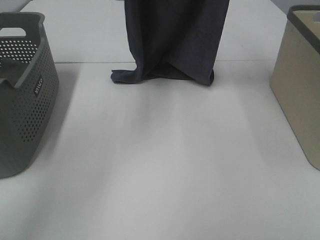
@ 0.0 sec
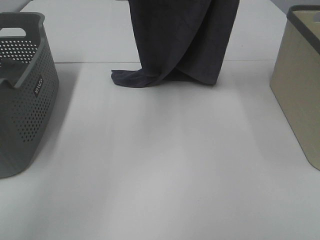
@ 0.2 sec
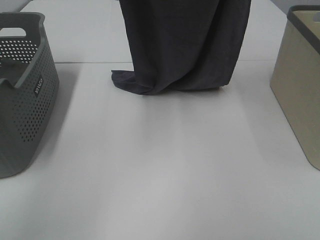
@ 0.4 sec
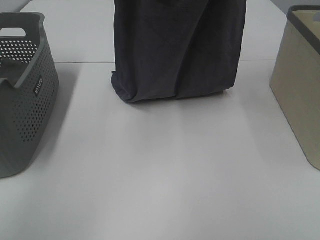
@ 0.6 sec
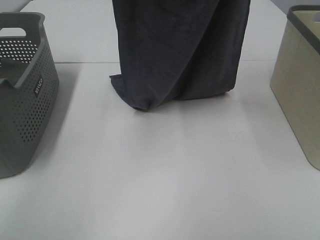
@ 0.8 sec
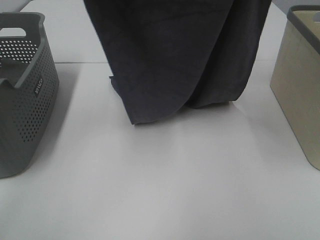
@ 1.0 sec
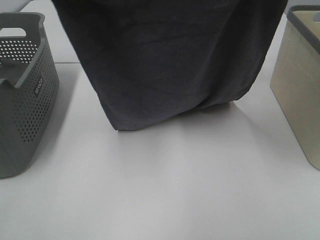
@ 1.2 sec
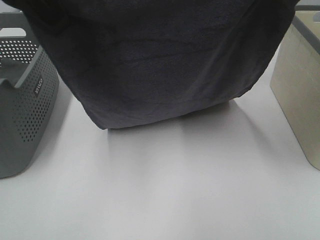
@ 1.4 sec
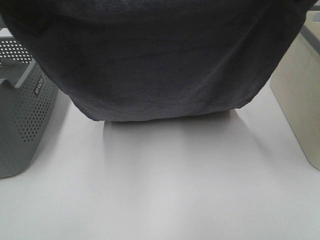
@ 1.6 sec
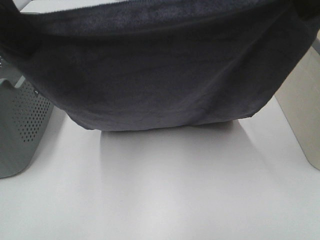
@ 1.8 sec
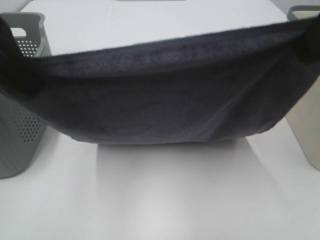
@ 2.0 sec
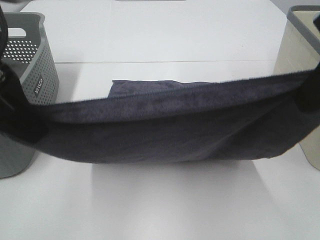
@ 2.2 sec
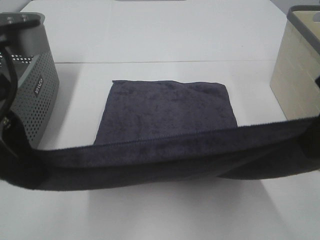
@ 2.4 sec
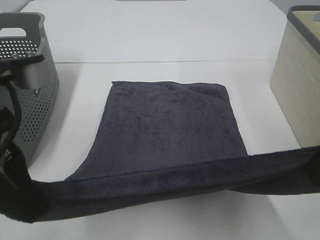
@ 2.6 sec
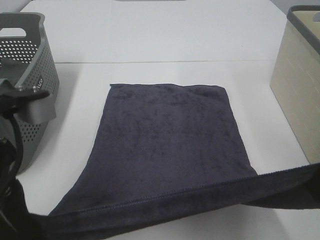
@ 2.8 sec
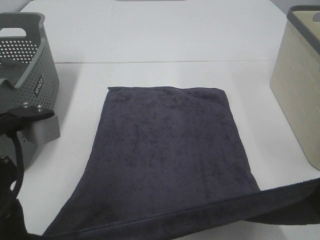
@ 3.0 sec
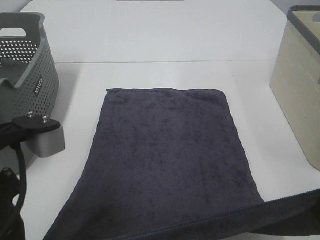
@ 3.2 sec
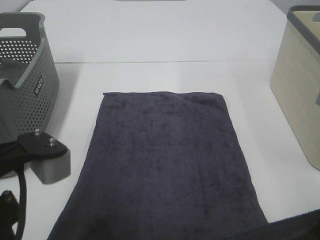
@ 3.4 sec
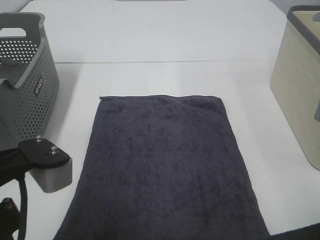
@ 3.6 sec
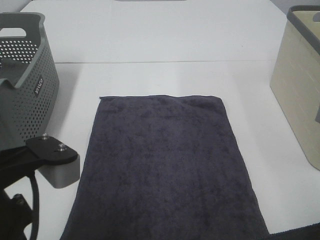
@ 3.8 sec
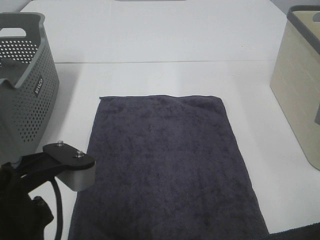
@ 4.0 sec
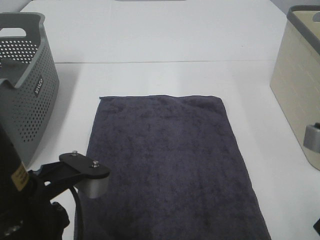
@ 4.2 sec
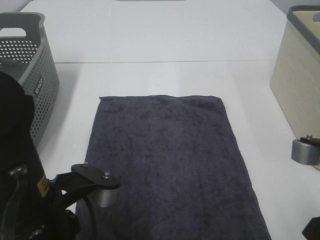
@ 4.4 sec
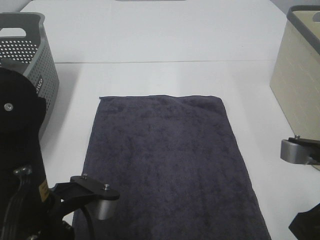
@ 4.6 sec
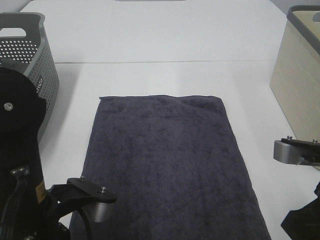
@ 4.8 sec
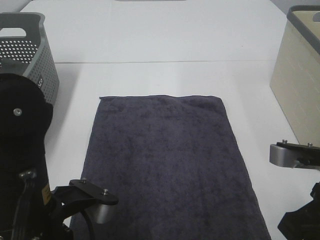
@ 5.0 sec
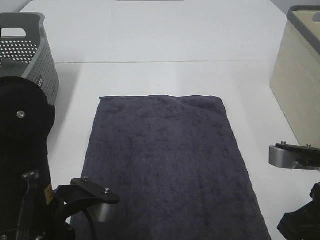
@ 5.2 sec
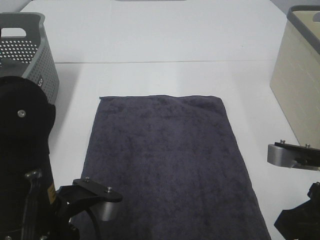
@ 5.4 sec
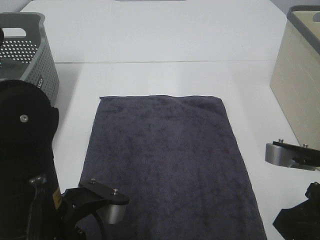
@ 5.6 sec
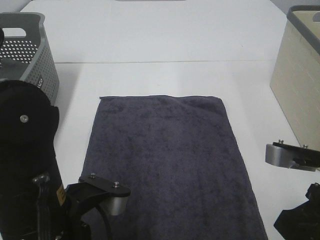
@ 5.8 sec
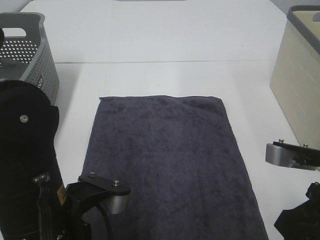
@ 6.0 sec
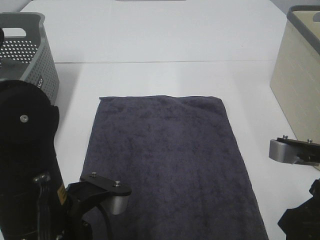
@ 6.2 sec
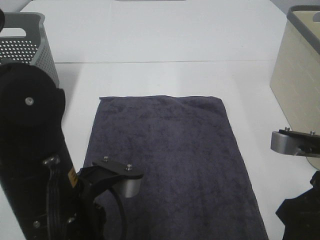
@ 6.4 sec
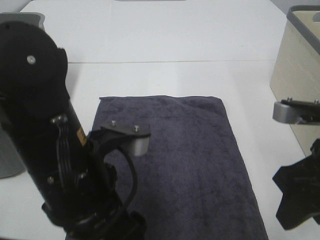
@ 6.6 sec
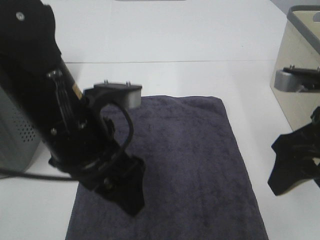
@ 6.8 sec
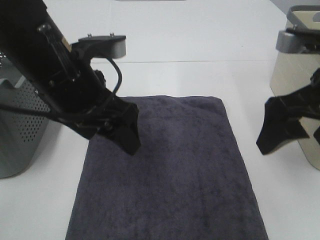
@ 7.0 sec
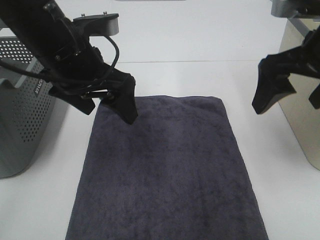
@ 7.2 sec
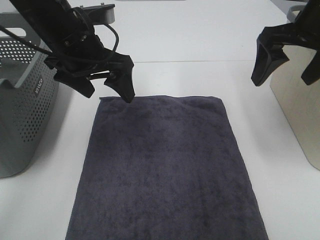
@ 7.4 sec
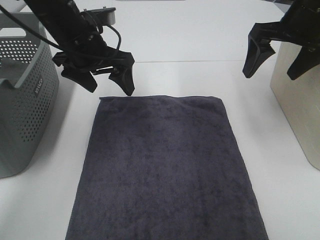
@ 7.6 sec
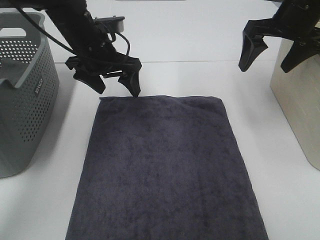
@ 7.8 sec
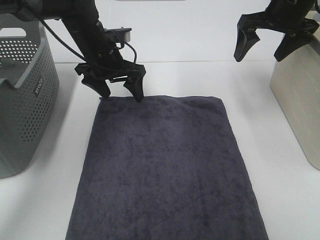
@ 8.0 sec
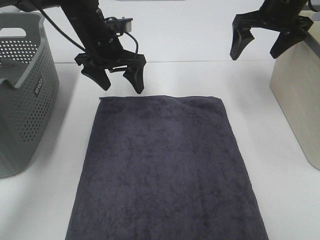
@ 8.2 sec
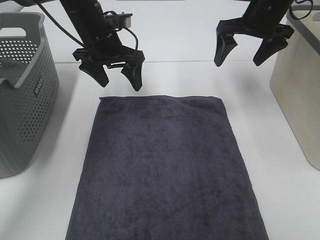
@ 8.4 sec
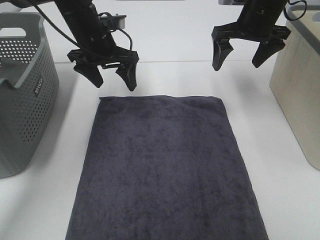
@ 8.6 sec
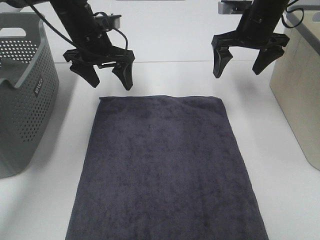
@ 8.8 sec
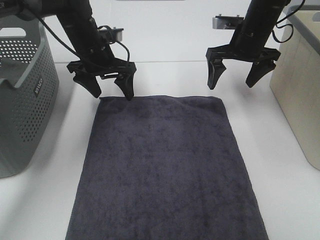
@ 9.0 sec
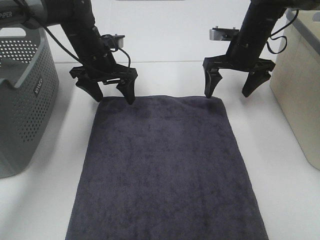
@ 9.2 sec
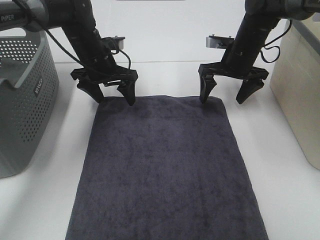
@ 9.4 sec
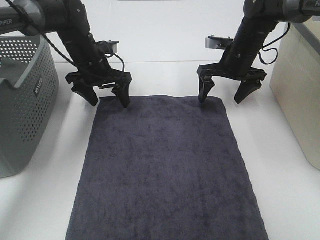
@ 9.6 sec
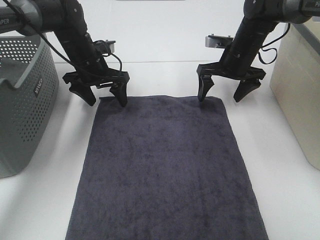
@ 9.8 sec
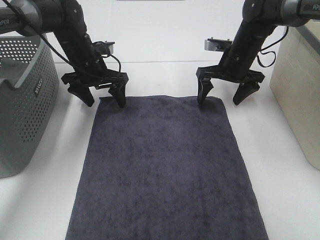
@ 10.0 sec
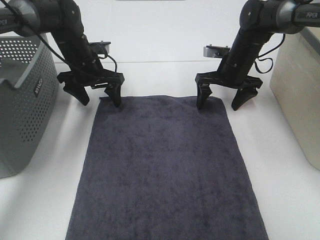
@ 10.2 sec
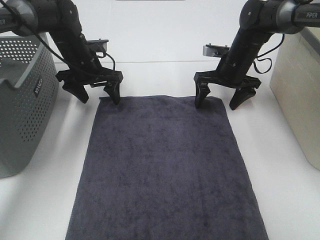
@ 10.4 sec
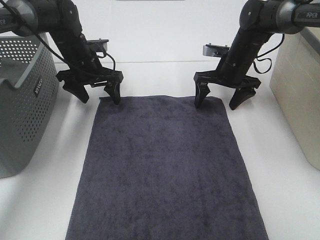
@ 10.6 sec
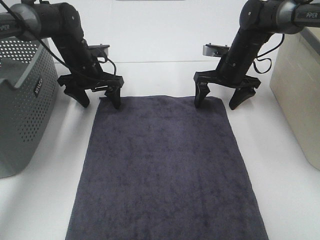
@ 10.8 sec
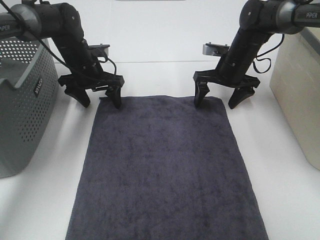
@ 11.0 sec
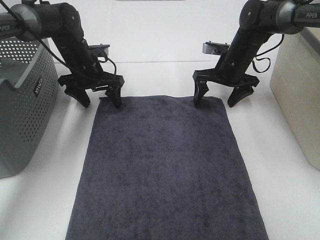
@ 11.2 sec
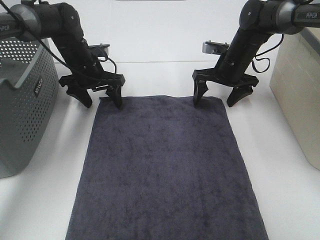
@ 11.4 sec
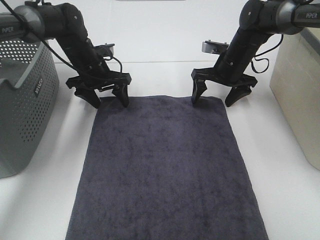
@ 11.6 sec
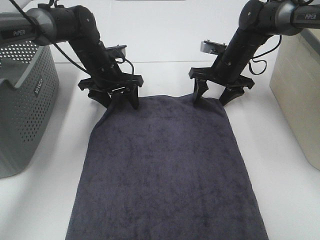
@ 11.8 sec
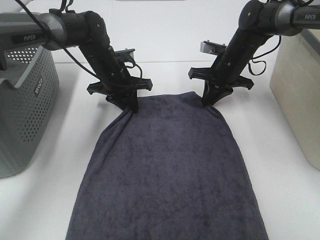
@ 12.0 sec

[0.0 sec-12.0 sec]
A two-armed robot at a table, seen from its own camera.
Task of the whole recording: Remove the towel and place it.
Step, 1.6 sec to 10.4 sec: Left hand:adjust the gray towel.
Step, 1.6 sec to 10.4 sec: Right hand:adjust the gray towel.
0.0 sec to 1.6 sec: Both grippers travel together backward, approximately 25 cm.
1.6 sec to 3.0 sec: Both grippers move downward and backward, some 15 cm.
3.0 sec to 4.4 sec: Both grippers move downward, some 5 cm.
4.4 sec to 6.0 sec: The left gripper opens up, while the right gripper opens up.
6.0 sec to 7.6 sec: The two grippers go approximately 25 cm forward. The right gripper opens its fingers.
7.6 sec to 9.0 sec: Both grippers travel together forward and downward, roughly 10 cm.
9.0 sec to 10.4 sec: The left gripper ends up approximately 5 cm from where it was, while the right gripper goes about 10 cm downward.
10.4 sec to 12.0 sec: The right gripper closes up; the left gripper heads to the right, covering approximately 5 cm, and closes up.

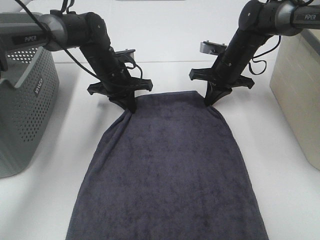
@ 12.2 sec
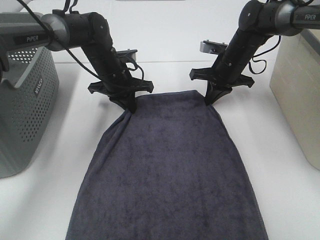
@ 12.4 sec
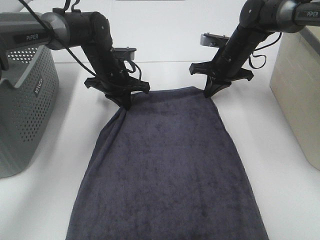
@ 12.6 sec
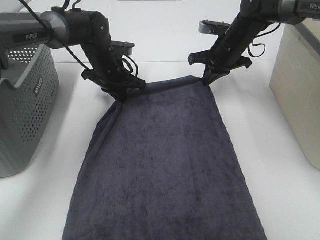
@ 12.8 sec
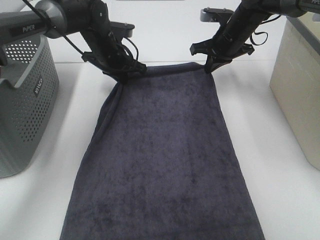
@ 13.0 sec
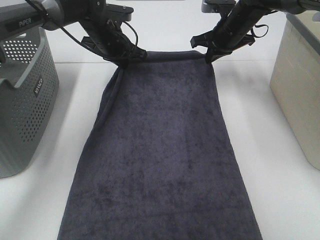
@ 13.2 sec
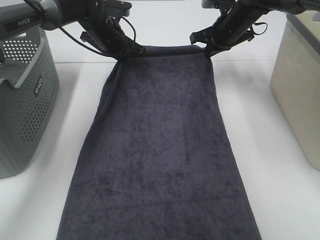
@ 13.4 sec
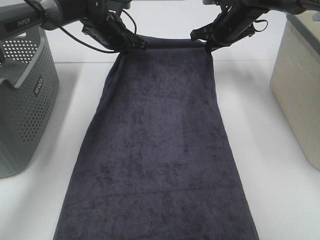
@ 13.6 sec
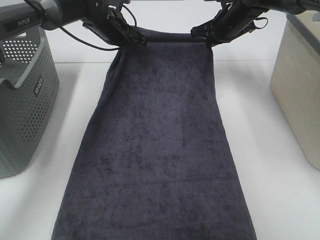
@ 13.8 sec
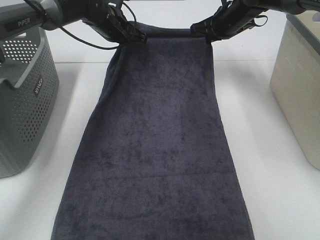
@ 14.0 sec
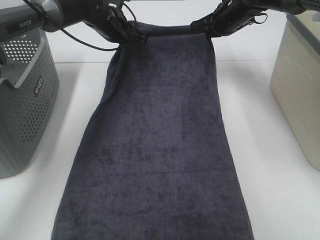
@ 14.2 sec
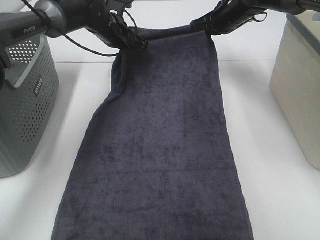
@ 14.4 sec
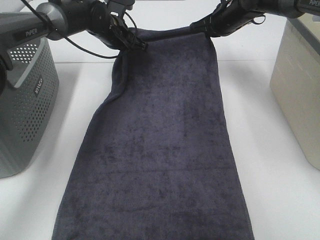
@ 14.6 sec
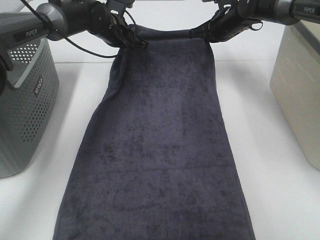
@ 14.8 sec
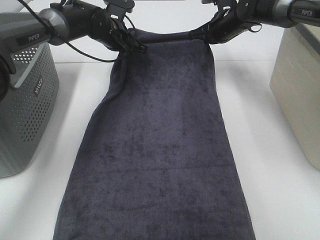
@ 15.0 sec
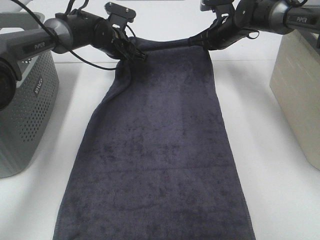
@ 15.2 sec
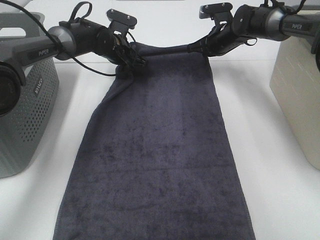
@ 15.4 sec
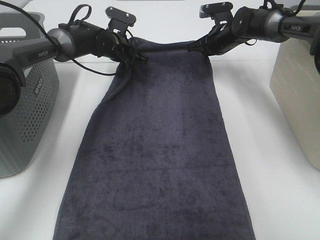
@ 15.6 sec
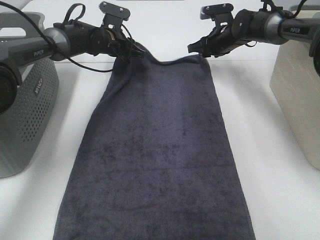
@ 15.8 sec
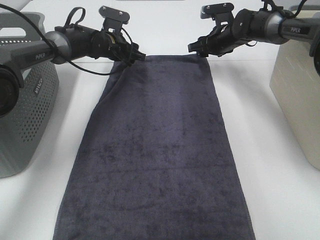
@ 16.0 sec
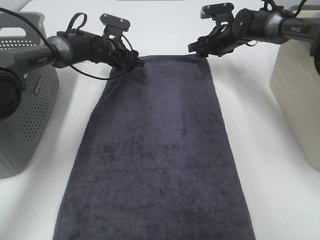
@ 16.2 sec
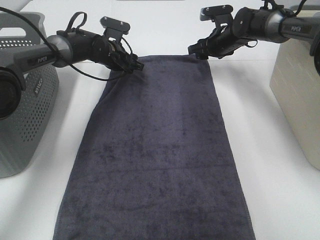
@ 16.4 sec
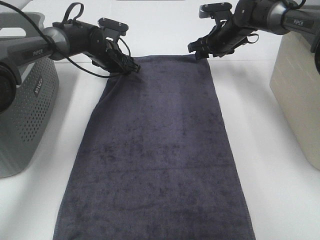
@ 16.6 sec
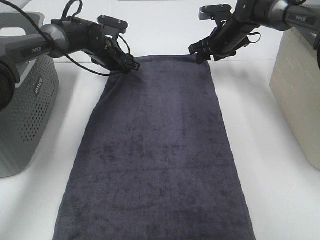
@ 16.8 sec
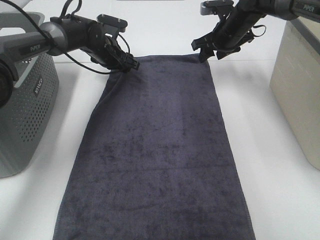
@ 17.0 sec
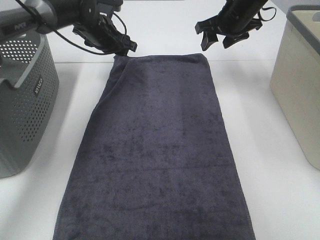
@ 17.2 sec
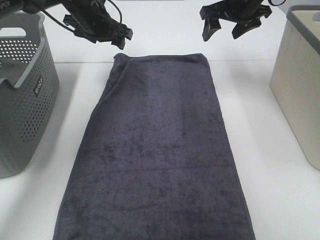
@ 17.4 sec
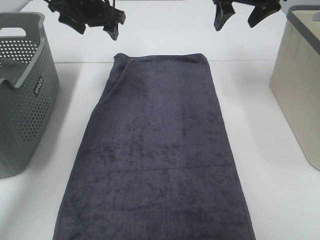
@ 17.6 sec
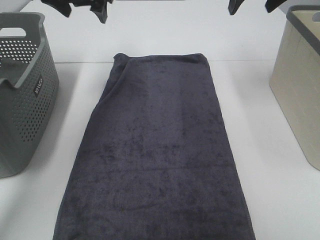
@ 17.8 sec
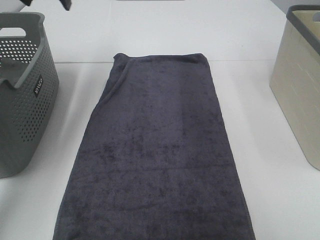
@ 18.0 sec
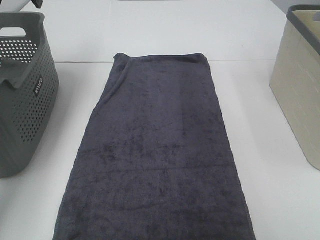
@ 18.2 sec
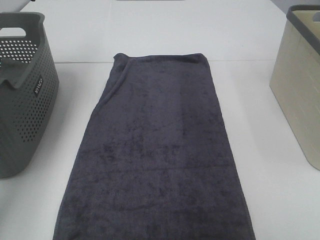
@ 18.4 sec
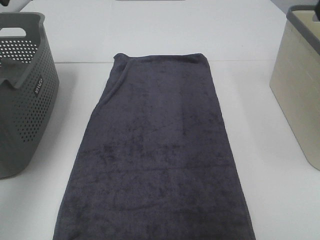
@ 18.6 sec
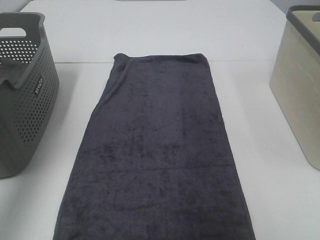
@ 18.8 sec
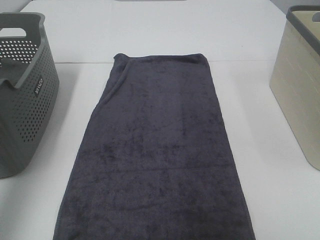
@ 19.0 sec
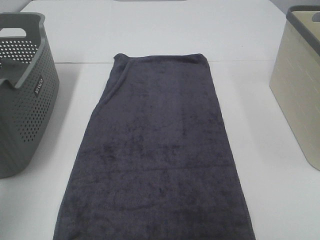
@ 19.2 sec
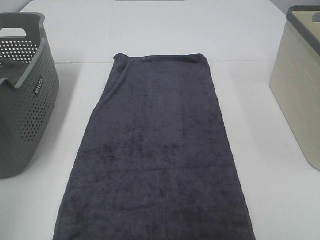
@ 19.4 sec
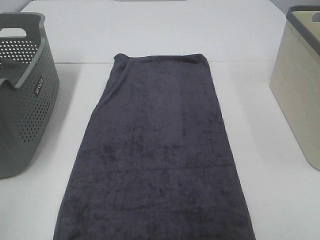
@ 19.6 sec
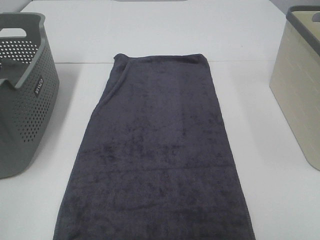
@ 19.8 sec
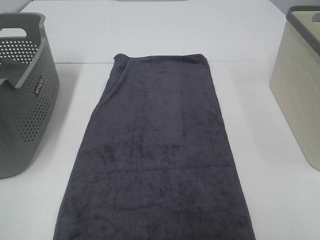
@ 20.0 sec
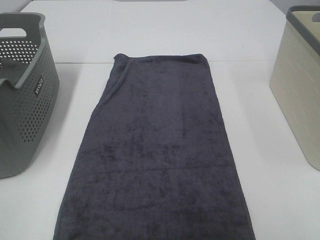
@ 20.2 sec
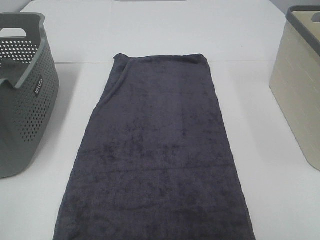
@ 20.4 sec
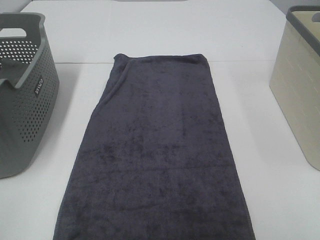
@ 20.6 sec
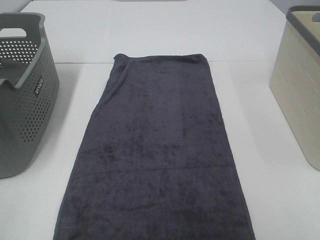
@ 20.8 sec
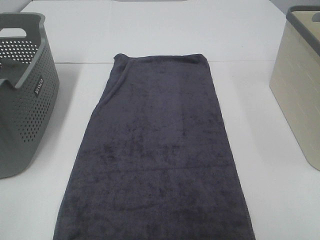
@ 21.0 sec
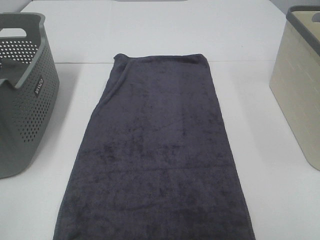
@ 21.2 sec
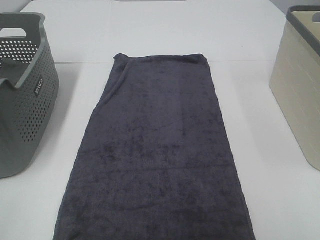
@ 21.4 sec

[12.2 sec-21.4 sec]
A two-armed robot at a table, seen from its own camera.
Task of the whole recording: Remove the towel and place it.
12.2 sec to 13.8 sec: Both grippers travel together upward and forward, roughly 10 cm.
13.8 sec to 15.2 sec: The left gripper heads downward, covering some 5 cm.
15.2 sec to 16.8 sec: The left gripper opens its fingers; the right gripper opens.
16.8 sec to 18.4 sec: The left gripper shifts some 30 cm upward, to the left and backward. Meanwhile the right gripper is displaced upward and backward by roughly 30 cm.
18.4 sec to 19.8 sec: The left gripper shifts some 50 cm backward.
